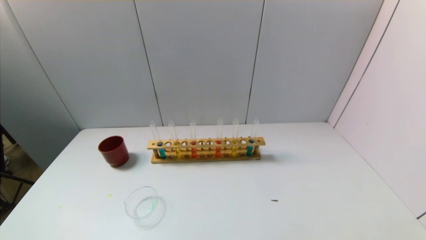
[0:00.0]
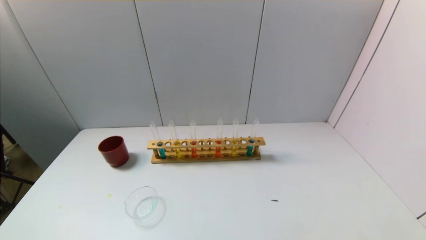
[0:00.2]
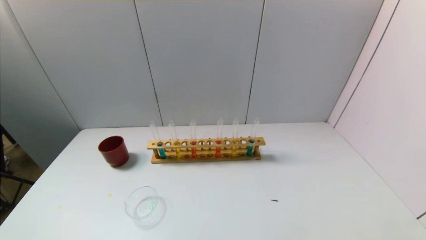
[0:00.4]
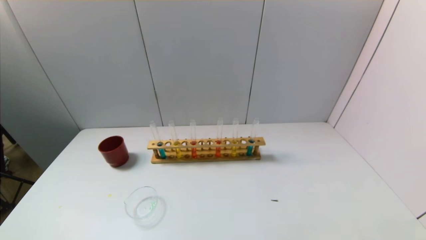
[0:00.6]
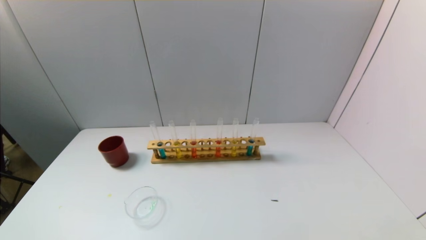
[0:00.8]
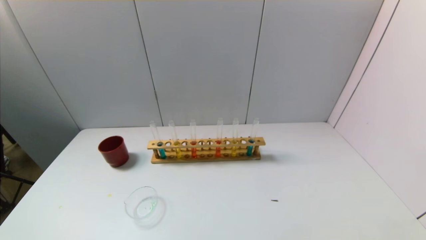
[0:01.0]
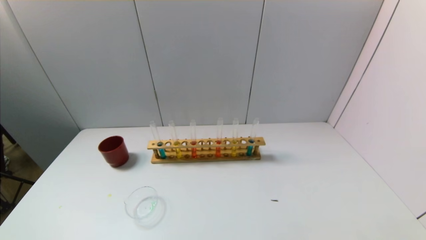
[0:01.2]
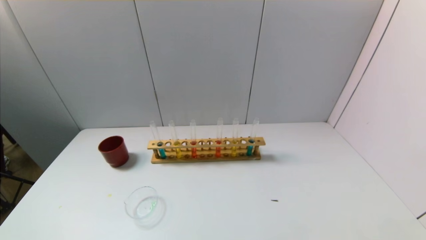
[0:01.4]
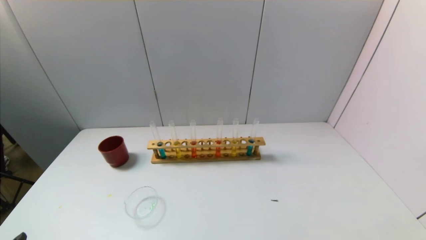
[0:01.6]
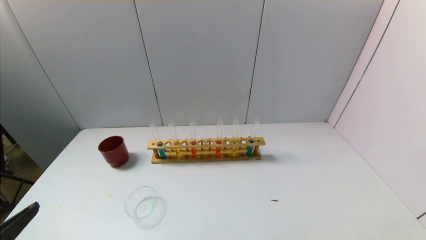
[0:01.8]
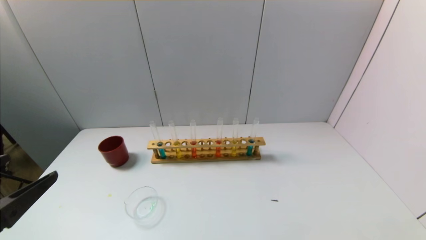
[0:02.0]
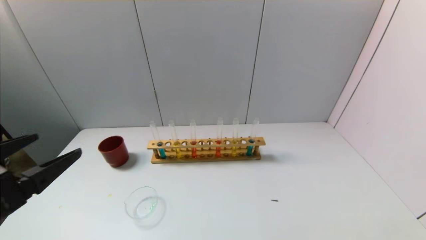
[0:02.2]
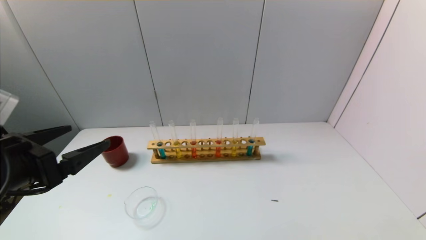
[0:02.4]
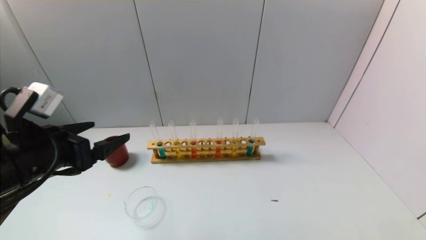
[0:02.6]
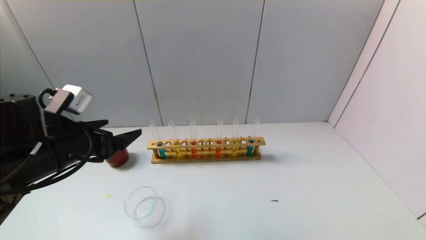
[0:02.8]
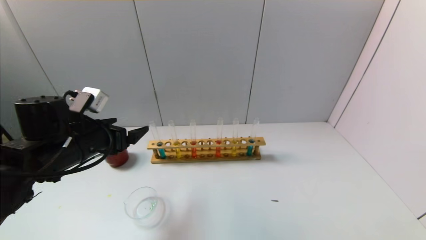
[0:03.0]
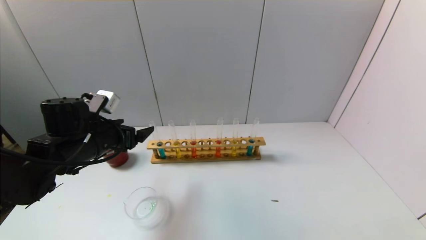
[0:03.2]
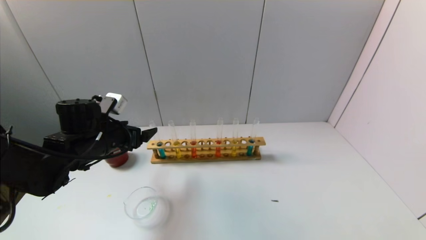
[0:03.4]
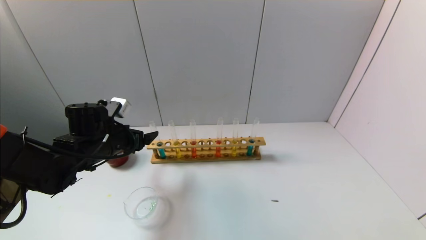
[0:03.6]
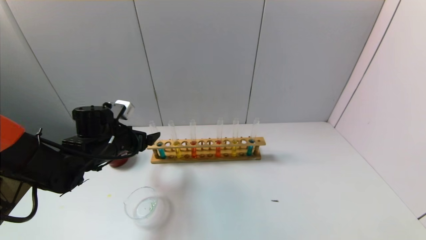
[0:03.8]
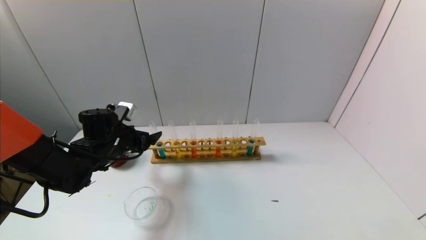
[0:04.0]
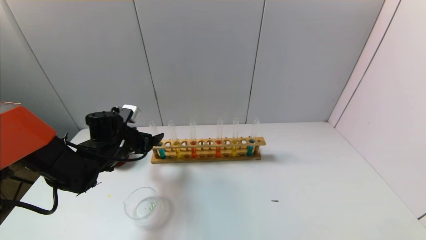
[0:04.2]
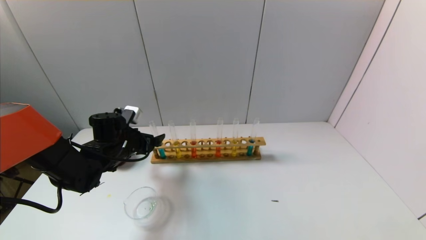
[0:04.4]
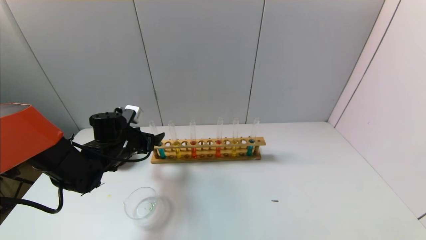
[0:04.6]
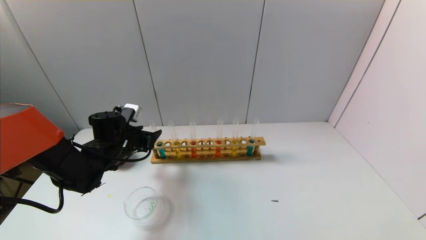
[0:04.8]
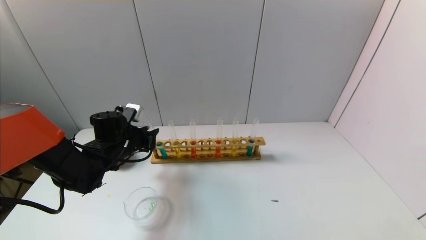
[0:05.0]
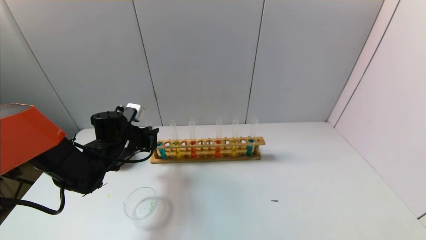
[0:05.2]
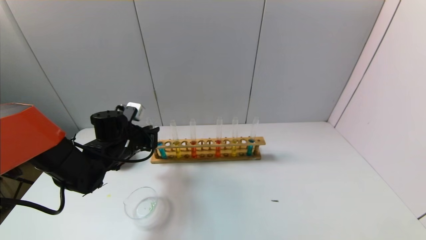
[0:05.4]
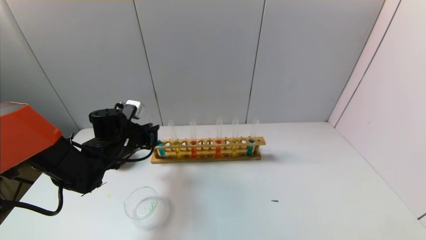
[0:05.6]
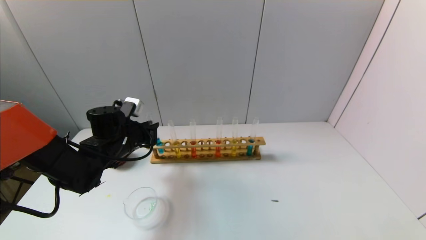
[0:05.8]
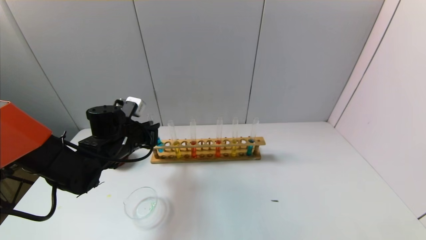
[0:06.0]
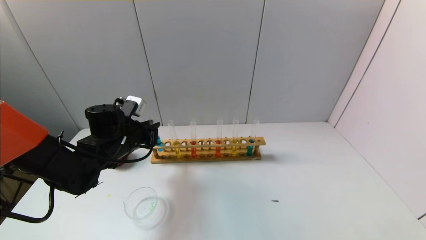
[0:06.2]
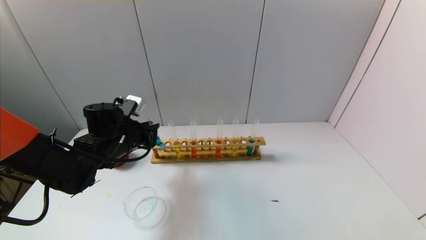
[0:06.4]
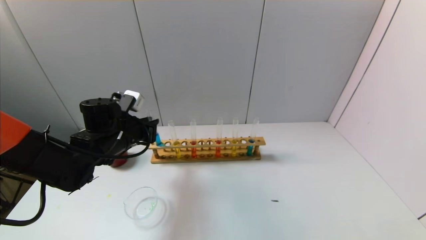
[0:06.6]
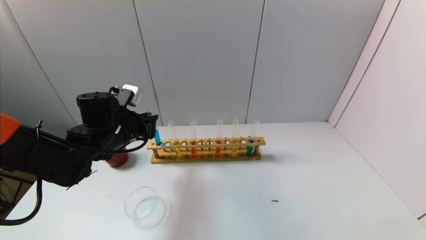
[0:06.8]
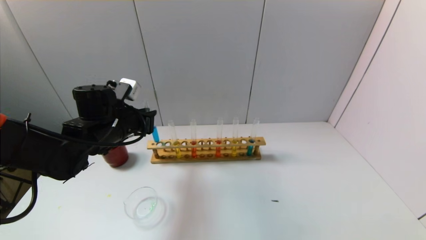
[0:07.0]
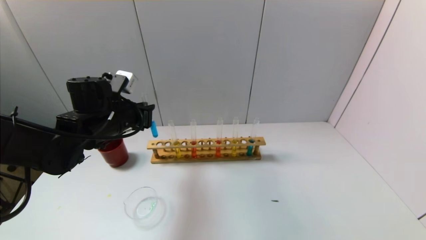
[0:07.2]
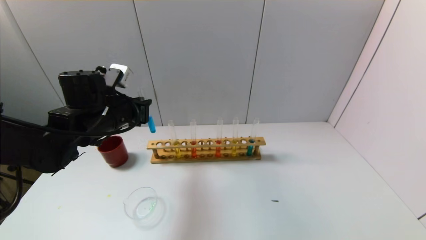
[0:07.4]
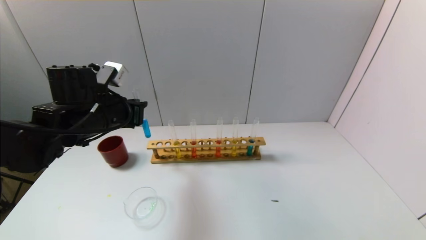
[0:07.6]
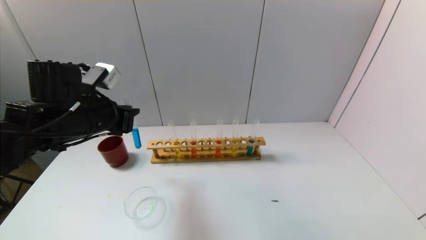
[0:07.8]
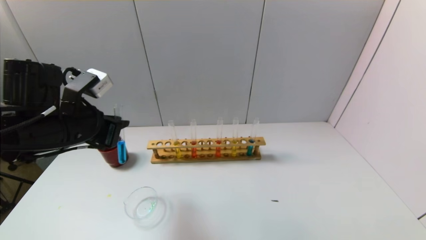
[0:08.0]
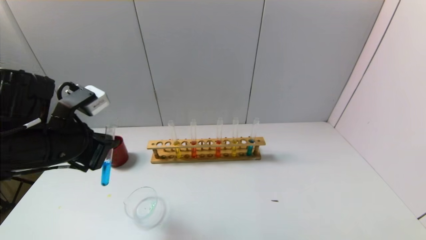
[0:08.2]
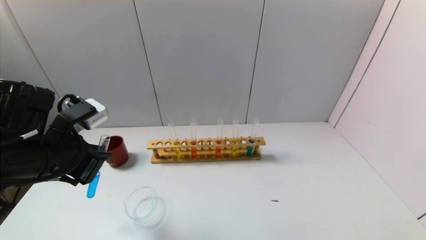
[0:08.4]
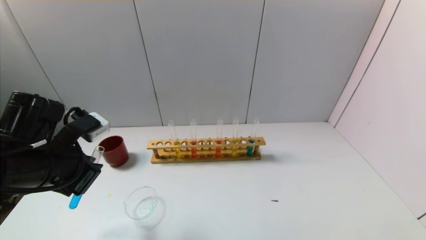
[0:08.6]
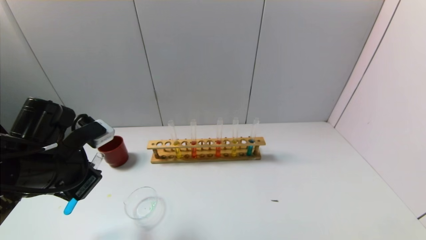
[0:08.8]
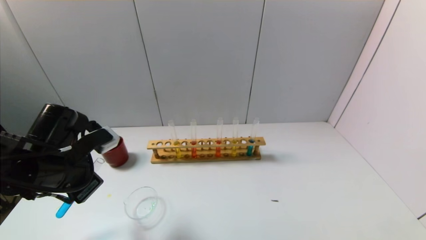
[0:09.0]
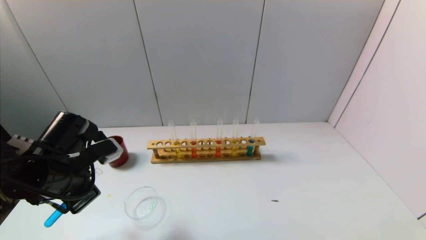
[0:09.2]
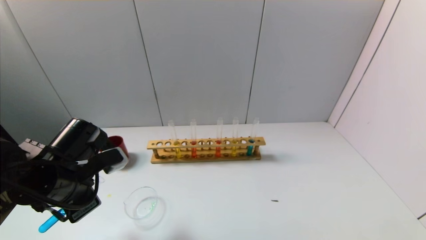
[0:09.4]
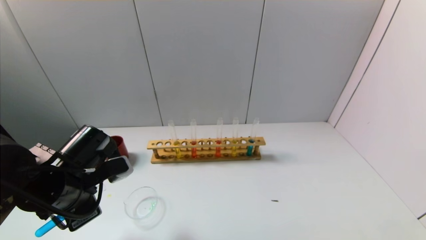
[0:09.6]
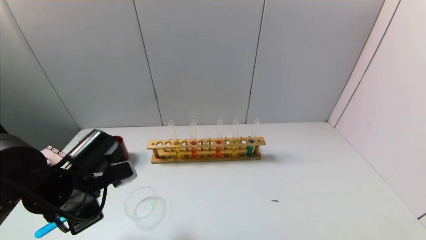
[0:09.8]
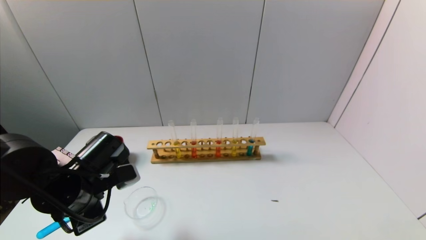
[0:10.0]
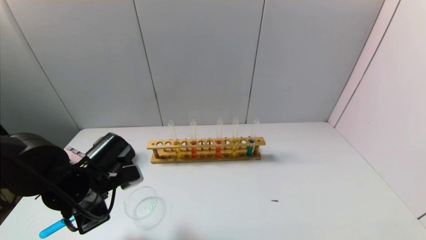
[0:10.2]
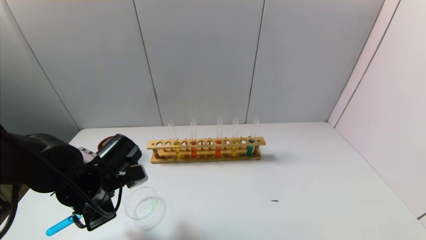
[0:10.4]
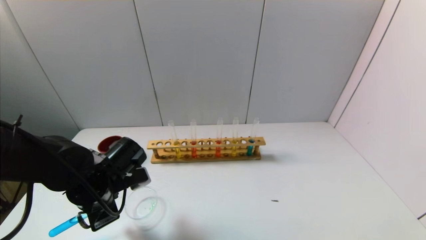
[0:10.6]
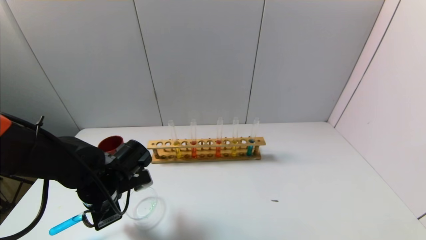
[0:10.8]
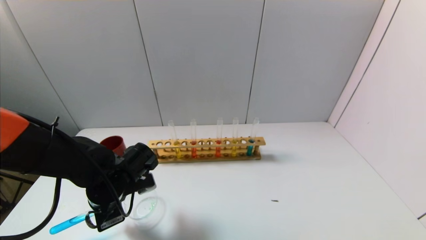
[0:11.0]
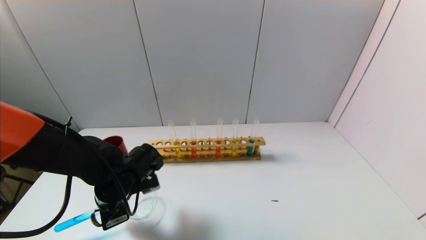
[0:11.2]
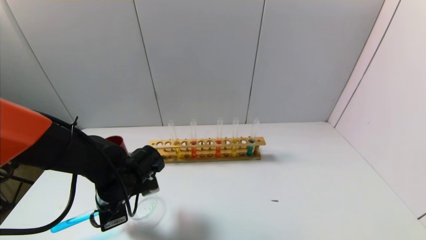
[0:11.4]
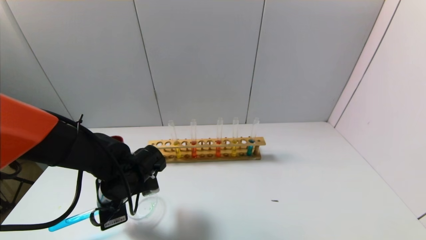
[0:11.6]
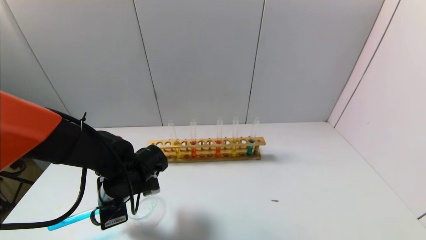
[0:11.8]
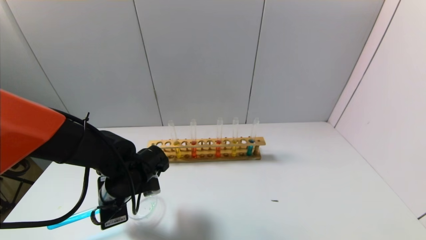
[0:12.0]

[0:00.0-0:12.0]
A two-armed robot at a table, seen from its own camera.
Task of the whole recording: pick up the test tube with yellow pigment and the test tube with blue pigment by grippers and pour them into the beaker.
Step, 0:00.0 to 0:05.2: Grasp the blue reagent with the left gripper.
0:01.6 to 0:03.0: The left gripper heads forward, covering roughly 25 cm.
0:03.0 to 0:04.4: The left gripper heads forward and downward, covering some 10 cm.
0:04.4 to 0:06.0: The left gripper closes up.
0:06.0 to 0:07.6: The left gripper goes approximately 10 cm upward.
0:07.6 to 0:09.0: The left gripper goes approximately 10 cm backward.
0:09.0 to 0:10.4: The left gripper shifts about 5 cm downward.
0:10.4 to 0:12.0: The left gripper changes place by about 5 cm.

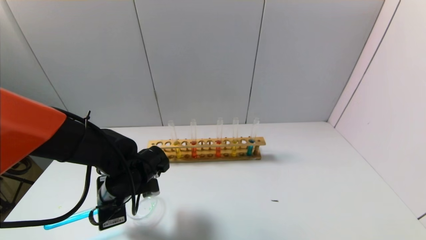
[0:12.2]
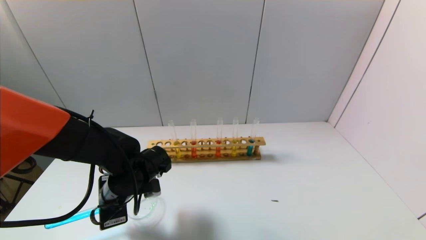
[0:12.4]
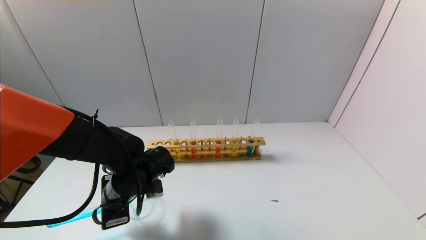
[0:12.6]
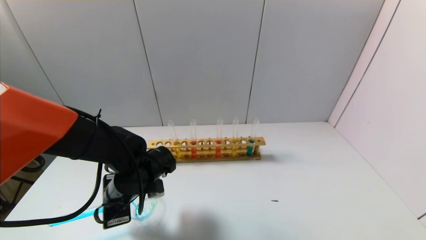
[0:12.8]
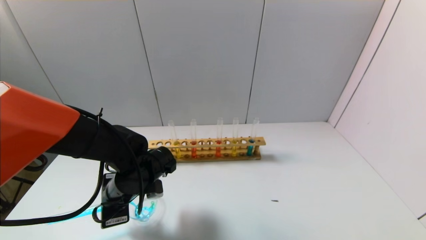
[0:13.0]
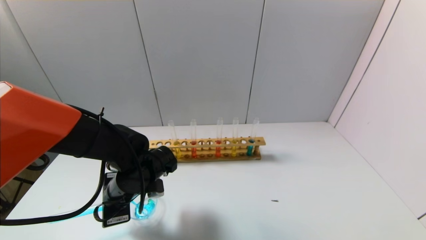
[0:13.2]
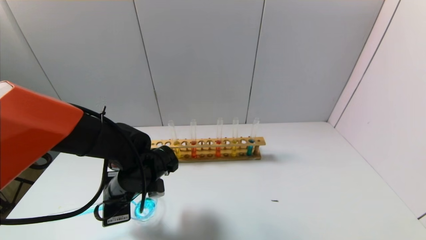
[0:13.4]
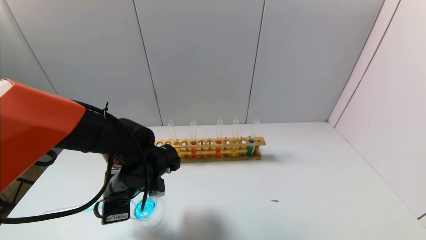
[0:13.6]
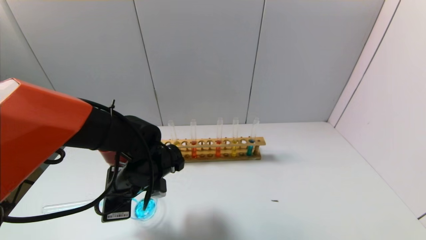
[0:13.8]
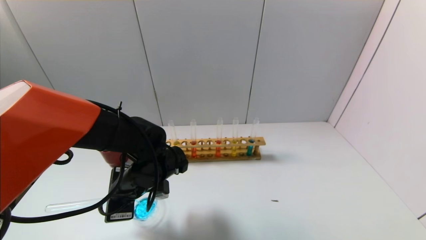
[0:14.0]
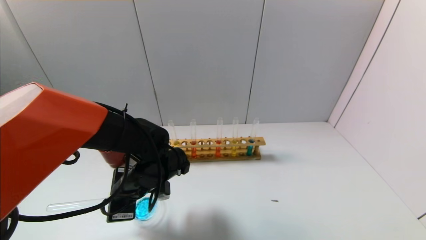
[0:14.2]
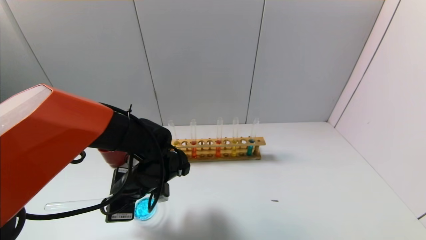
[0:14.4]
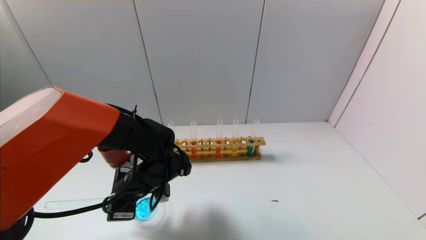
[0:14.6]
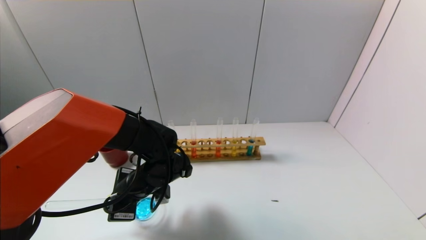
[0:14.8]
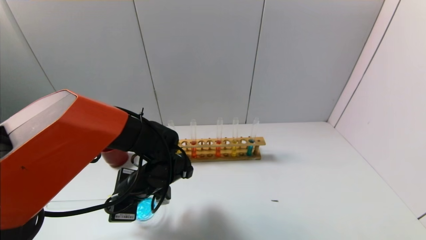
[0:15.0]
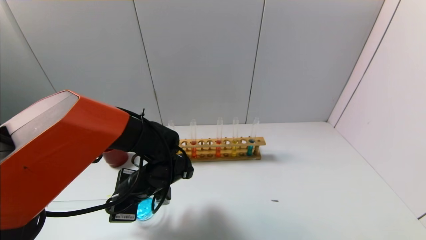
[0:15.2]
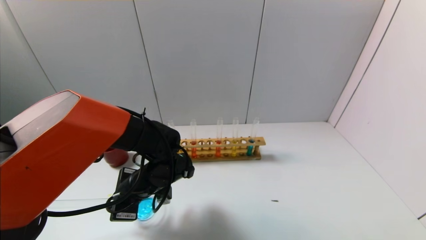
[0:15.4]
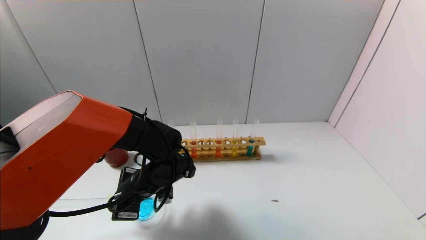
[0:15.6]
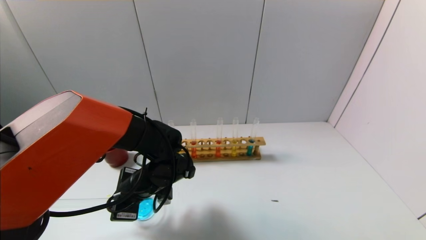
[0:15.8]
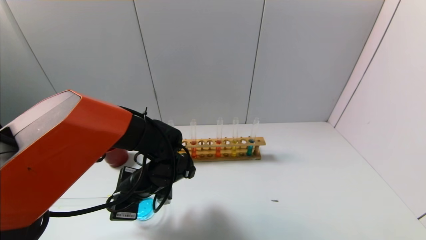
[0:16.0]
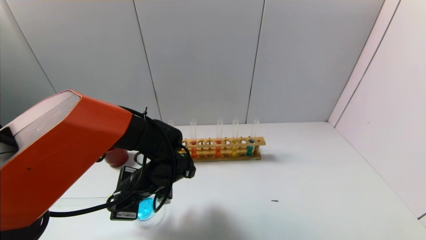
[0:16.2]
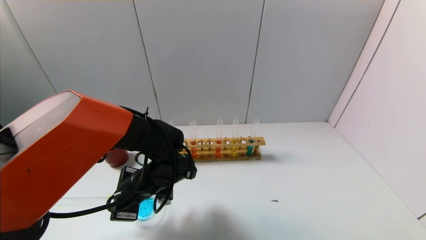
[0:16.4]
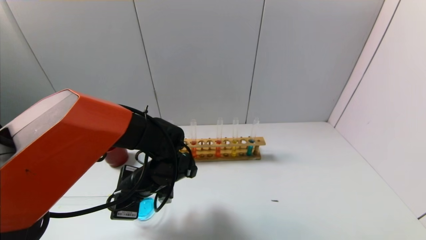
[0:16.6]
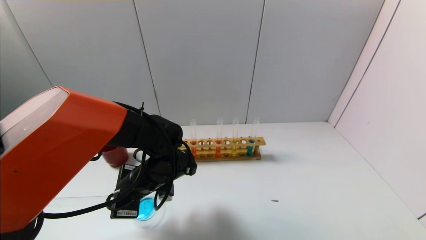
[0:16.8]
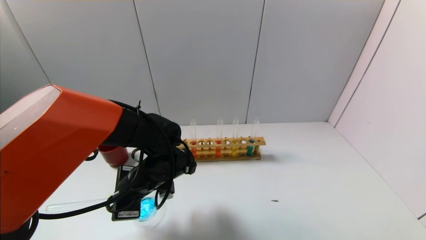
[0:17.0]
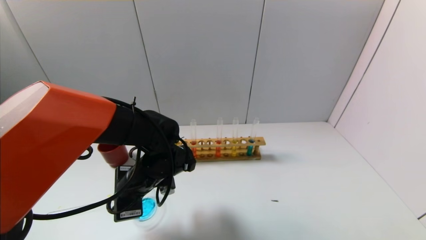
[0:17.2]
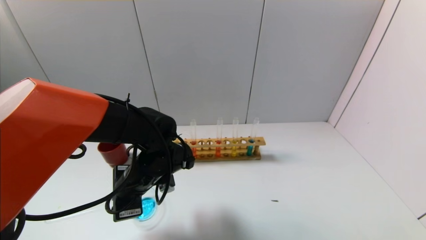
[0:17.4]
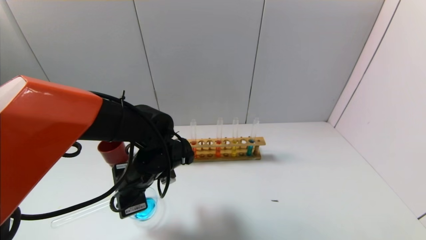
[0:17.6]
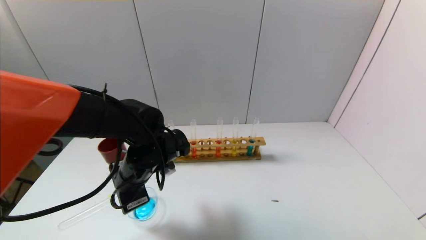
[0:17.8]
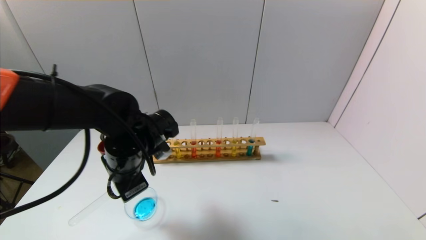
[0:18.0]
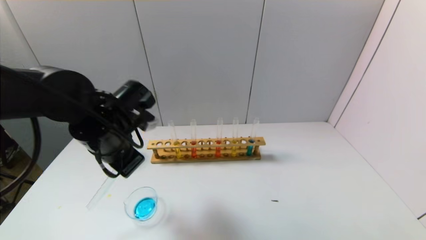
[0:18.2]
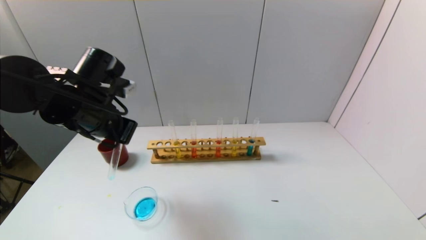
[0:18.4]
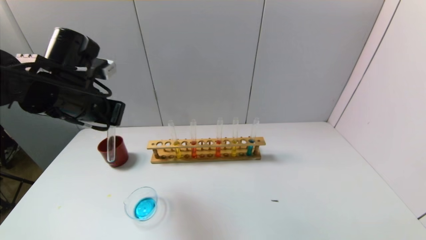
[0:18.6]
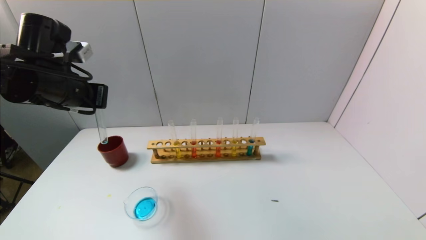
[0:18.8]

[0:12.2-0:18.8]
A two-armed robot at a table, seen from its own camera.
Task of the whole recording: pick up the test tube with yellow pigment and the test tube with blue pigment by grippers and pour them into the beaker.
Step, 0:12.2 to 0:15.8: Pour the blue reagent into the graduated cylinder with the left gripper.
0:12.2 to 0:13.8: The grippers stay close to where they were, moving slightly.
0:13.8 to 0:17.2: The grippers make only small movements.
0:17.2 to 0:18.8: The left gripper travels upward and to the left by roughly 20 cm.
